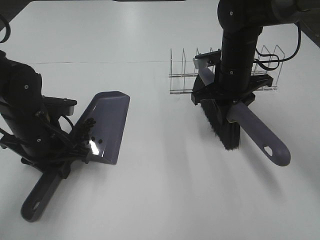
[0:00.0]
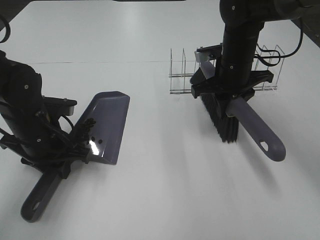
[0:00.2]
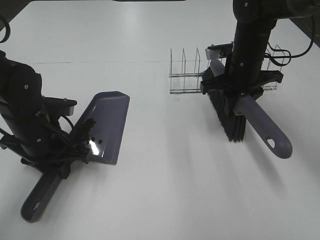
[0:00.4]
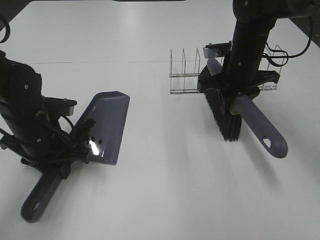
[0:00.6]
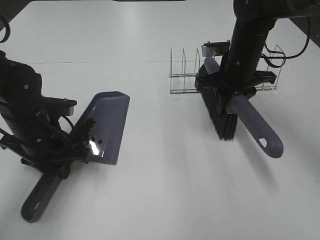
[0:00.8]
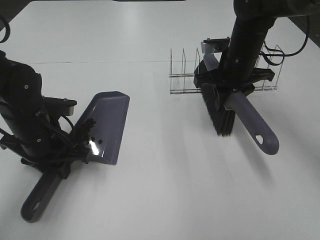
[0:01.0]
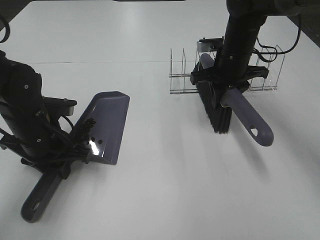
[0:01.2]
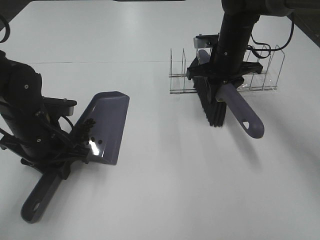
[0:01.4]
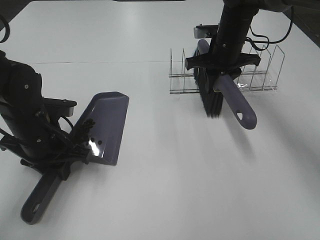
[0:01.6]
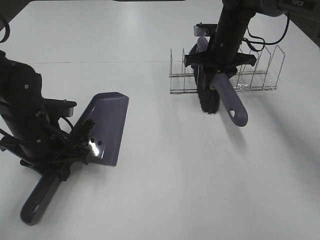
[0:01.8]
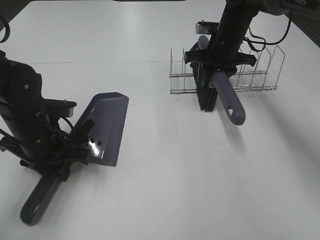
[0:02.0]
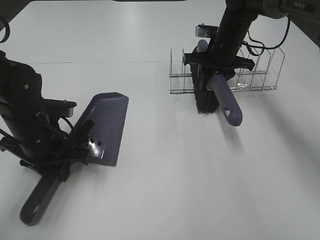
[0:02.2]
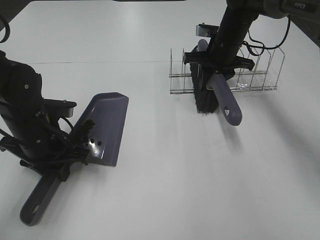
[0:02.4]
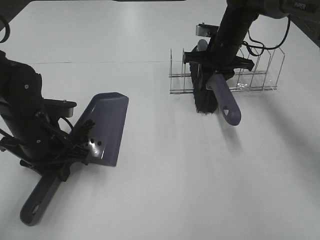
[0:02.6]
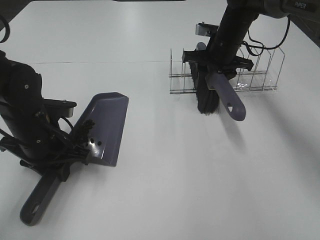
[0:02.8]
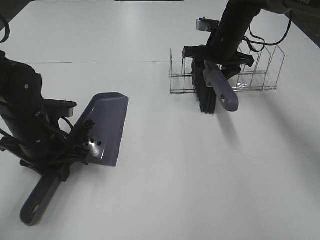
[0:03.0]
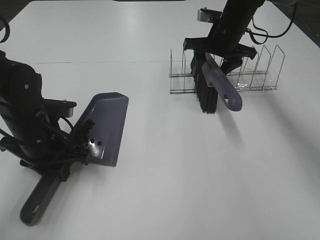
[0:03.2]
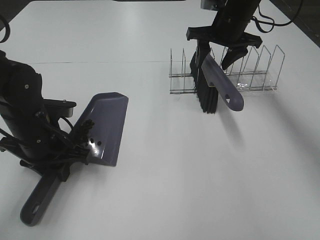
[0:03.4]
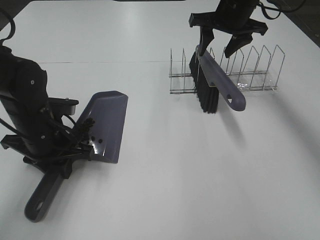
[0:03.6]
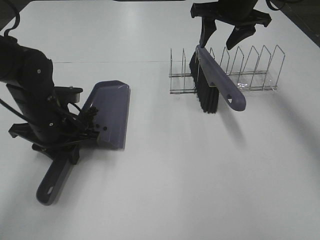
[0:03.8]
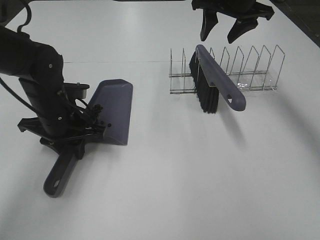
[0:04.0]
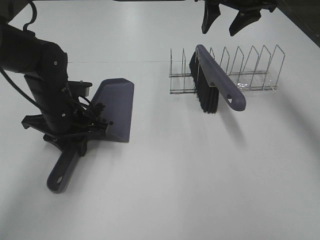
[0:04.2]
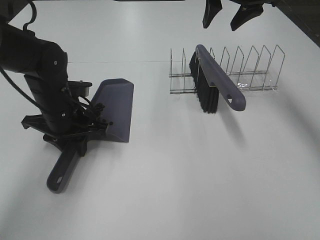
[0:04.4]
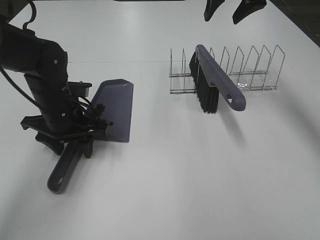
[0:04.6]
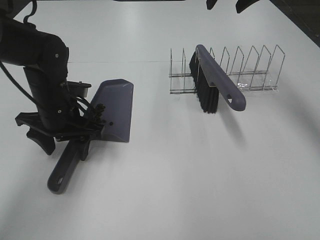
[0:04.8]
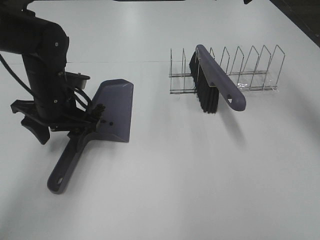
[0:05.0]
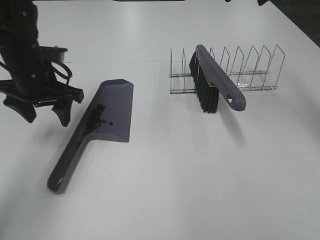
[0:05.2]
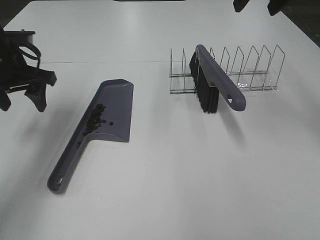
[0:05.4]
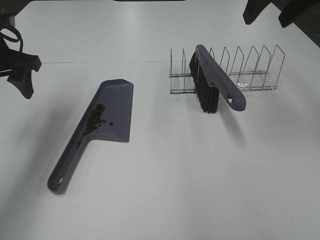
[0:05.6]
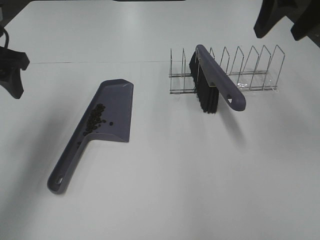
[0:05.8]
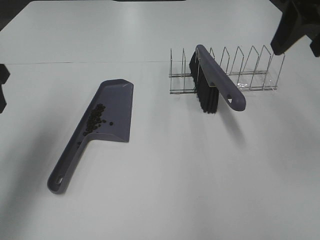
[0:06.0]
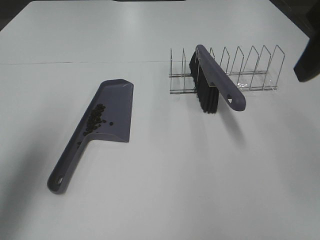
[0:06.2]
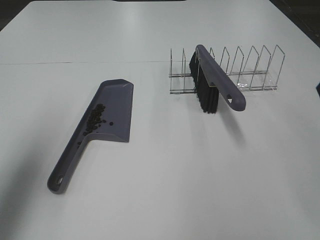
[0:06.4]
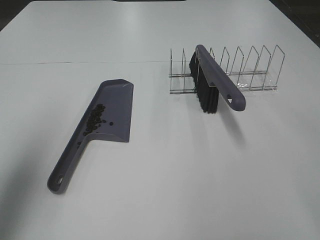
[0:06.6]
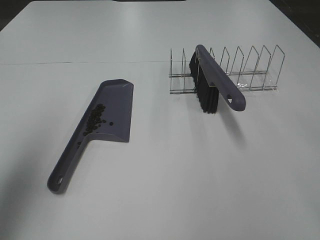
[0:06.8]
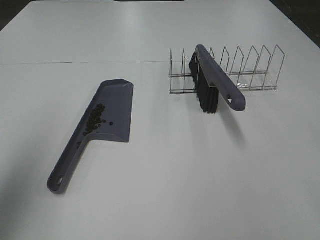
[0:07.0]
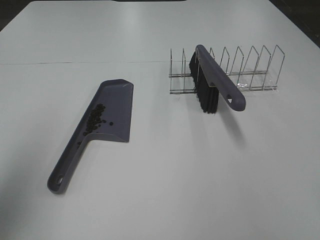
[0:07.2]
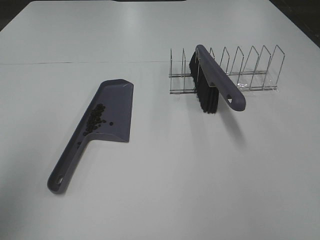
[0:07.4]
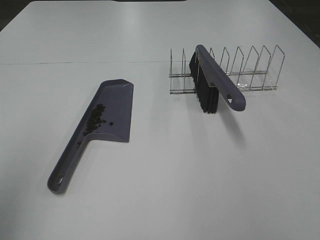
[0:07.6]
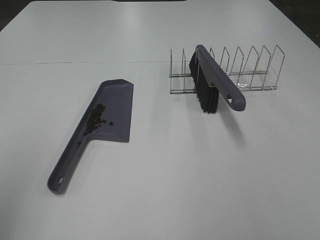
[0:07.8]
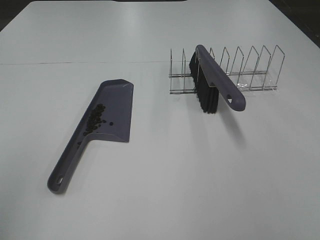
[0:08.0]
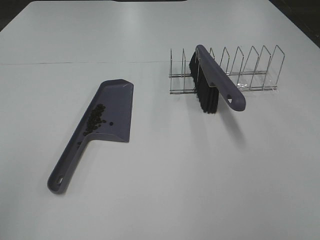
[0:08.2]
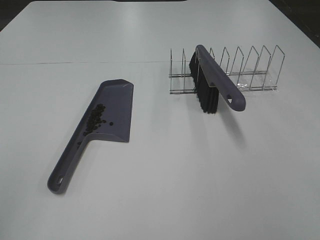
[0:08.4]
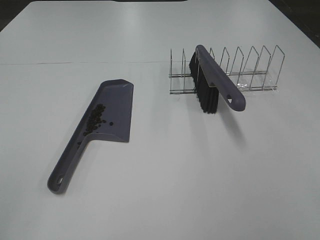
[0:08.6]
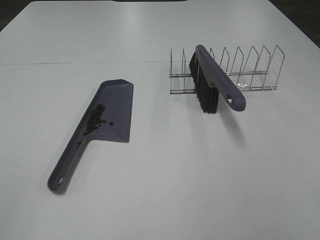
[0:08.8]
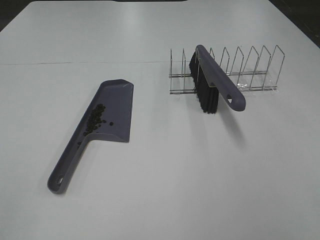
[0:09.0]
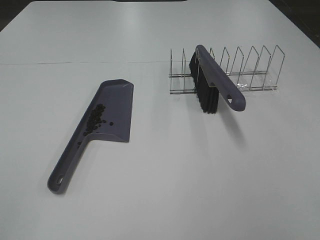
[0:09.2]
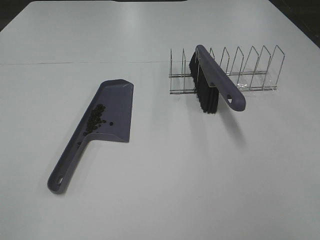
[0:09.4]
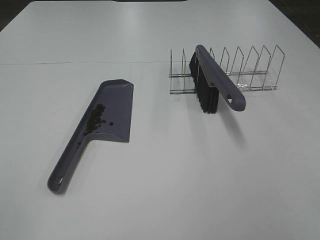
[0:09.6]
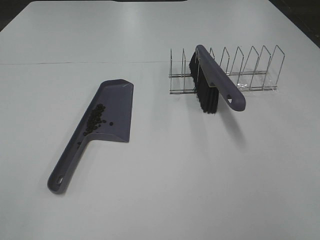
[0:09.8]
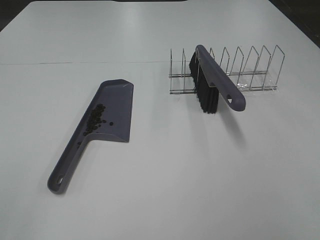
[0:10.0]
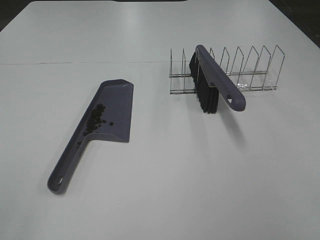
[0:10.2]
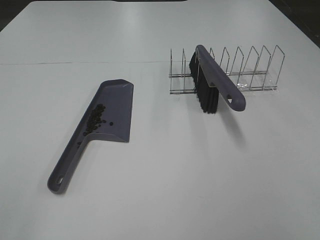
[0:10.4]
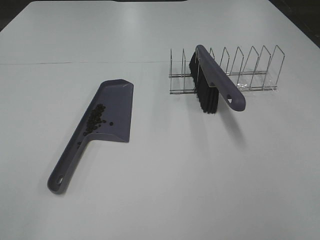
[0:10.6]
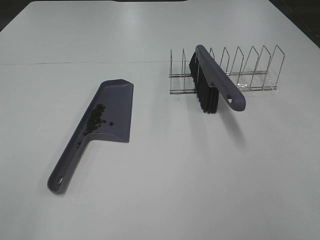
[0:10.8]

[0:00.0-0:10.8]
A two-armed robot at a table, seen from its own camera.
Task of the whole recording: Sweep Coffee Bean.
Step, 0.0 to 3.2 s: Right hand:place the broom on the rack.
Step, 3.4 to 4.8 s: Left hand:place the dustpan on the table.
0.0 to 1.6 s: The right gripper moves forward, roughly 10 cm.
1.6 to 3.0 s: The right gripper opens.
3.0 to 4.6 s: The right gripper goes about 15 cm upward, while the left gripper moves forward, approximately 5 cm, and opens up.
4.6 to 6.2 s: The right gripper is displaced backward by approximately 25 cm. The left gripper is displaced upward, to the left and backward by roughly 25 cm.
6.2 to 7.8 s: The grippers both shift backward by approximately 15 cm.
7.8 to 9.2 s: The left gripper goes about 10 cm backward.

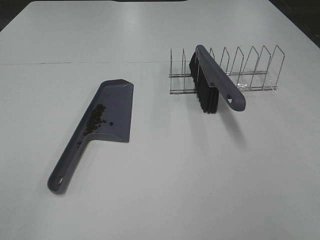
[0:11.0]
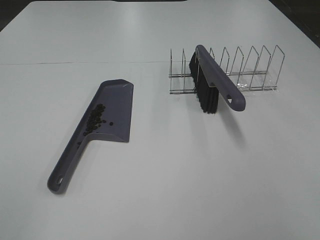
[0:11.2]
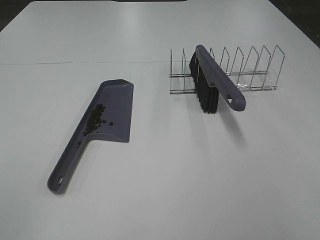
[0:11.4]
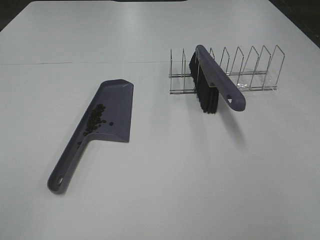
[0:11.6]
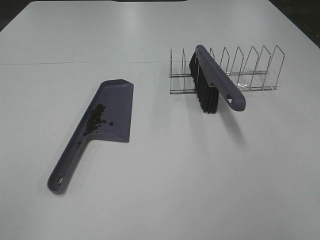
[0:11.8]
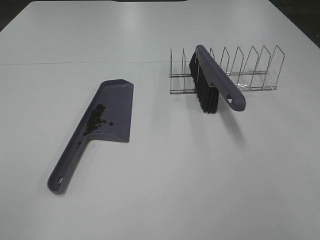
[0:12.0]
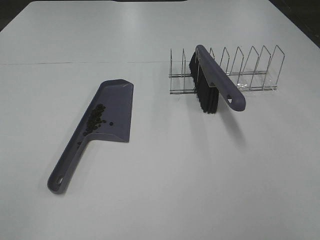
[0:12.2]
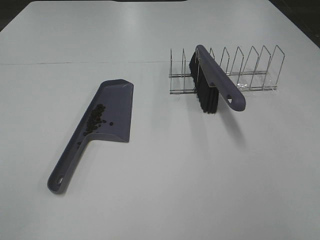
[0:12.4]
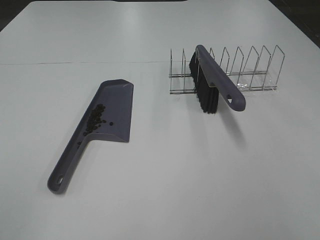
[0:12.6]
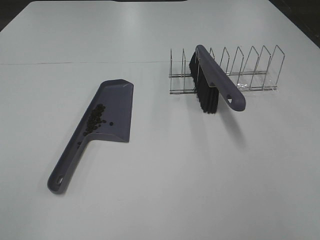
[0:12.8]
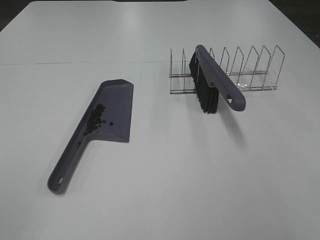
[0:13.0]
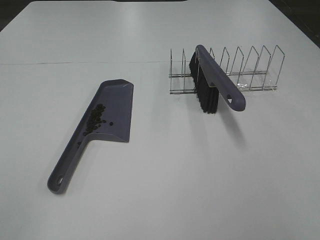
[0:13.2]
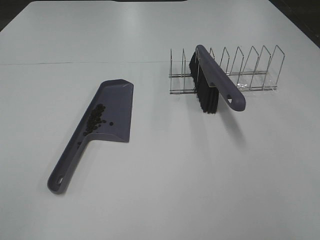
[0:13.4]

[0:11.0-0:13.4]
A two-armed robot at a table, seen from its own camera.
Task of the whole recording: Sweep Coffee Bean.
12.2 to 13.4 s: The two grippers keep their place.

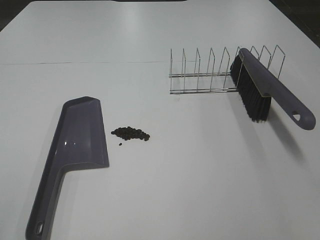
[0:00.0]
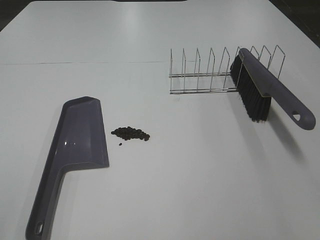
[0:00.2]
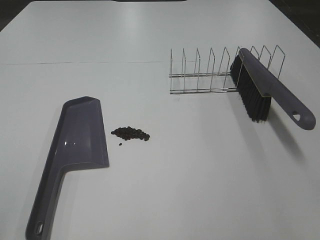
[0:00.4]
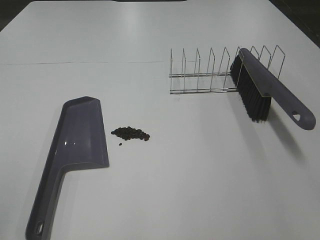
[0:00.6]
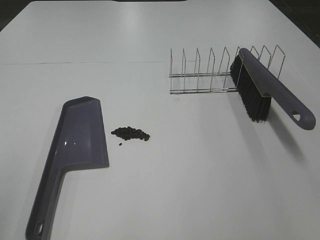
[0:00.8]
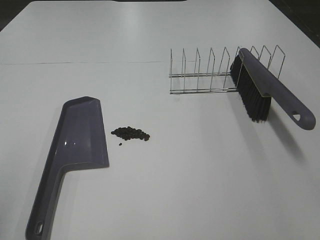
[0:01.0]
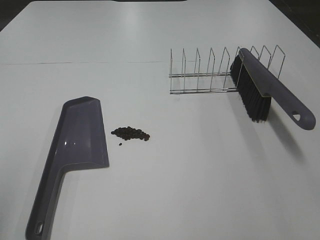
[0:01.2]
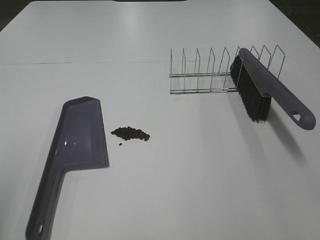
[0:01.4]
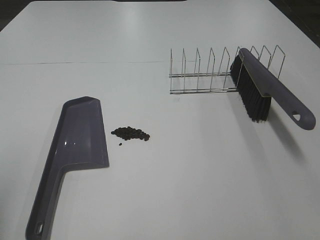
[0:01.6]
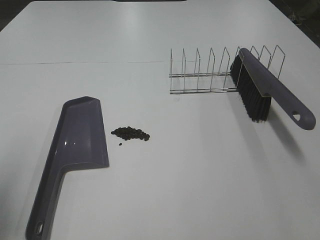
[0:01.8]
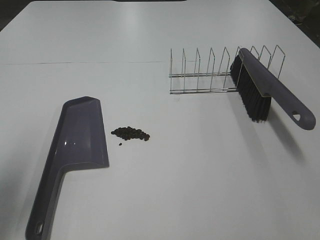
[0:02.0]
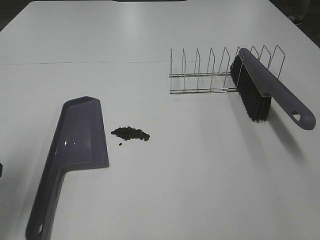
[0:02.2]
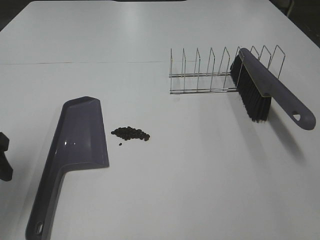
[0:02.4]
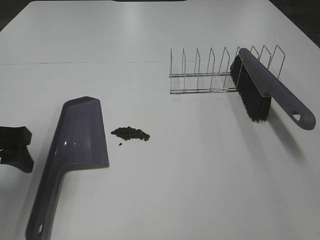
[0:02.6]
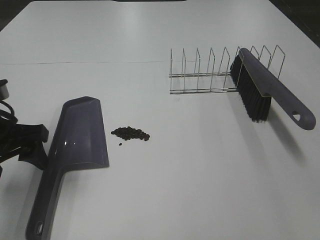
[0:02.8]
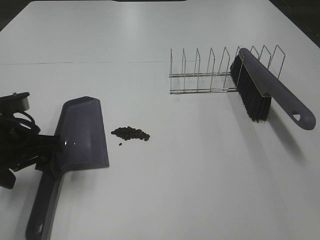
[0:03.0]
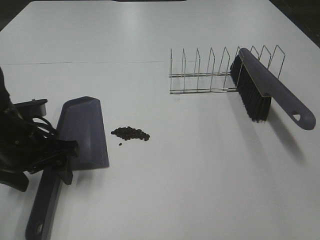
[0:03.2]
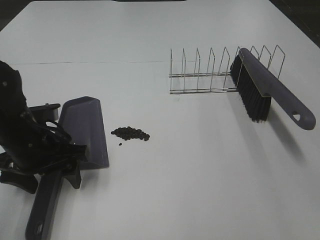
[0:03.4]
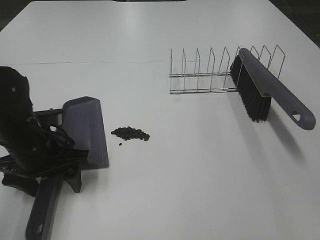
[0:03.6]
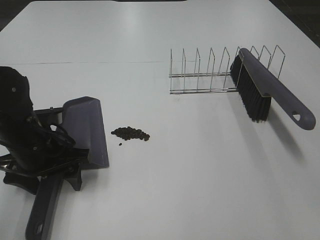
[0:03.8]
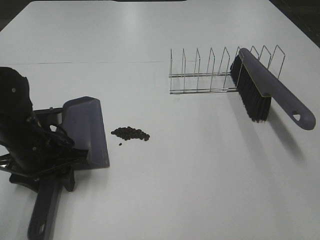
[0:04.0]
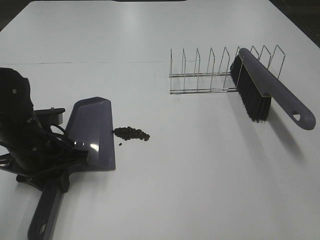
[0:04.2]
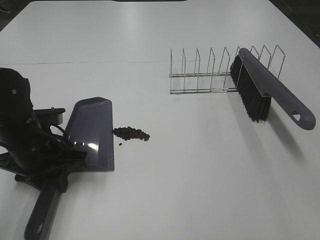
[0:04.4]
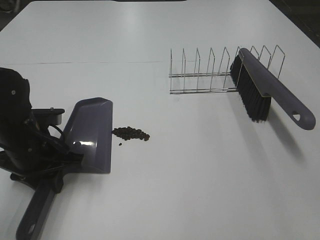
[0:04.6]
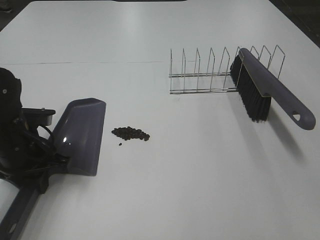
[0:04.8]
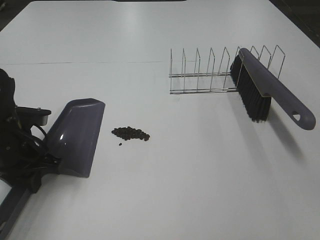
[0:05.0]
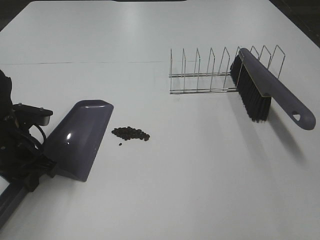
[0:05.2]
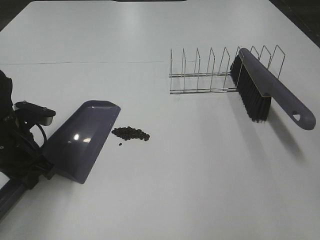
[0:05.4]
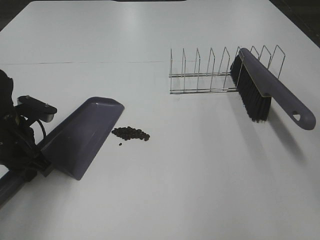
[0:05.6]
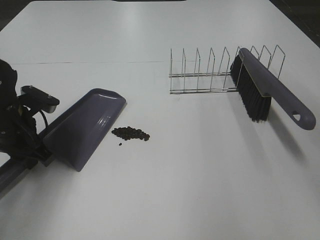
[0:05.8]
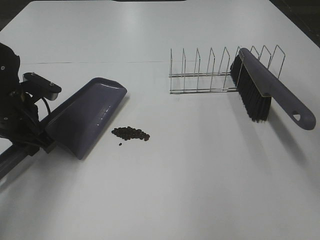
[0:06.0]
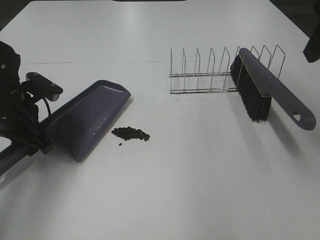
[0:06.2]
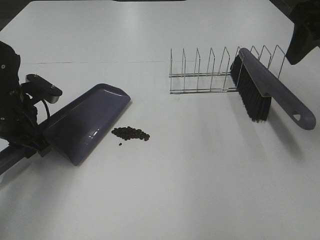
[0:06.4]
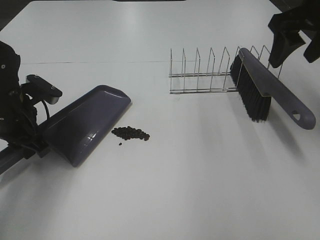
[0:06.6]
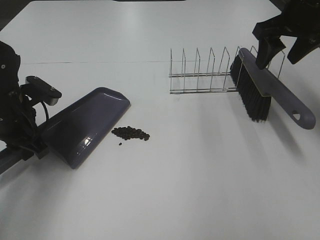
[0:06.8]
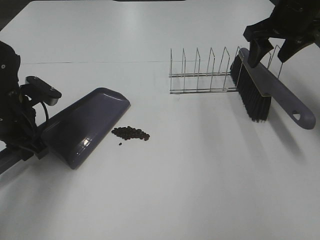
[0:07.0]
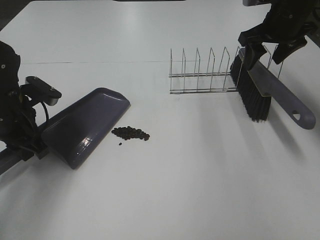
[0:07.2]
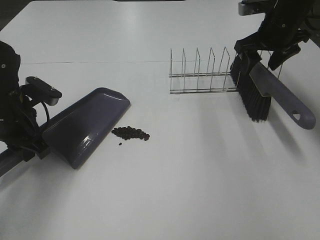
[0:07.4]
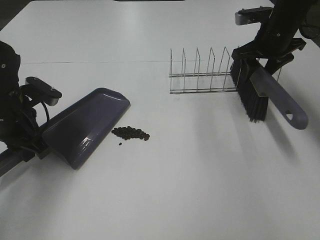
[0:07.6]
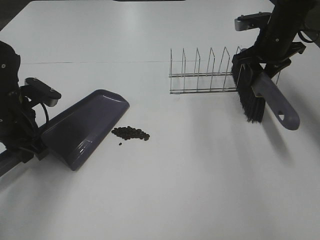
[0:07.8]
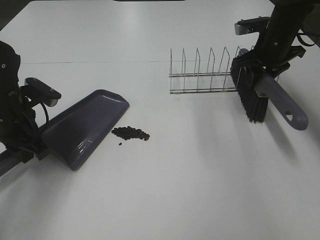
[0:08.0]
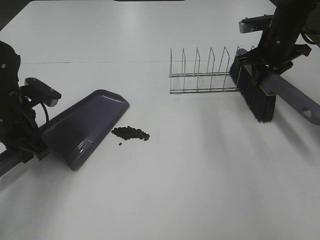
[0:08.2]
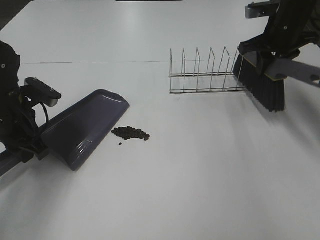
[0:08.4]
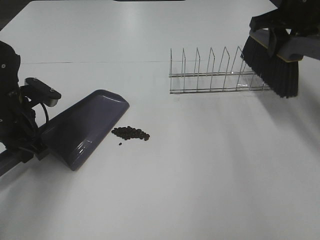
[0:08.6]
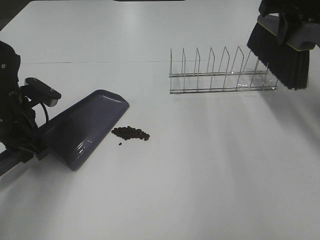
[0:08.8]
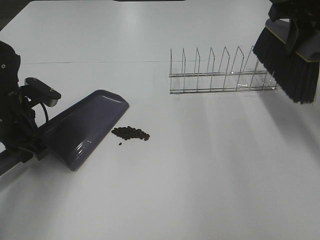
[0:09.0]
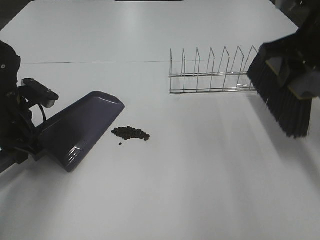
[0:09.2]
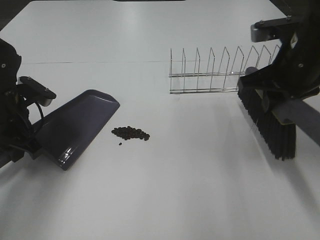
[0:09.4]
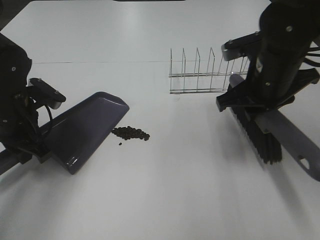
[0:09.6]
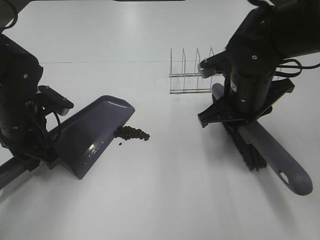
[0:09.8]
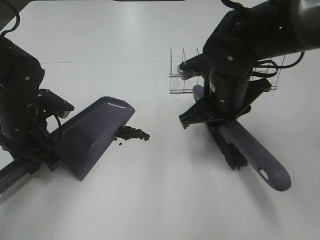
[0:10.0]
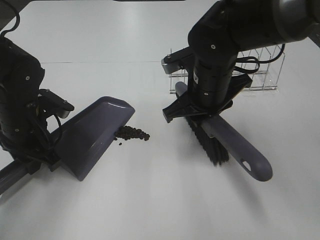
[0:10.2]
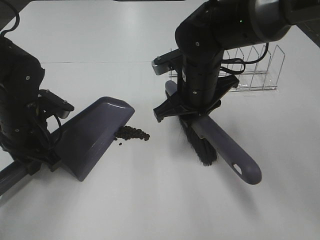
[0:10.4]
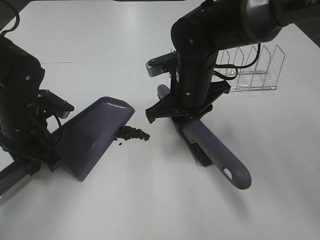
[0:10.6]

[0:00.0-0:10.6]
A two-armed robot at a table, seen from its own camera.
Task of the whole recording: Sweep Coffee Bean.
Step, 0.0 to 4.2 s: Left hand: grab the dustpan.
Step, 4.4 to 6.8 s: Left hand: move the dustpan to the left side of the coffee beans.
Step, 4.8 to 7.8 s: Right hand:grab the broom.
1.6 to 3.0 s: The left gripper shifts some 20 cm forward, downward and to the right.
3.0 to 4.6 s: The left gripper shifts by some 5 cm, and closes its fingers.
4.6 to 6.0 s: The right gripper is displaced forward by some 20 cm; the left gripper travels forward by approximately 5 cm.
6.0 to 7.6 s: The right gripper is displaced forward and downward by some 30 cm.
7.6 to 9.0 s: The right gripper is displaced upward and backward by about 15 cm, and closes.
9.0 to 10.6 s: The right gripper shifts about 25 cm to the left and downward.
